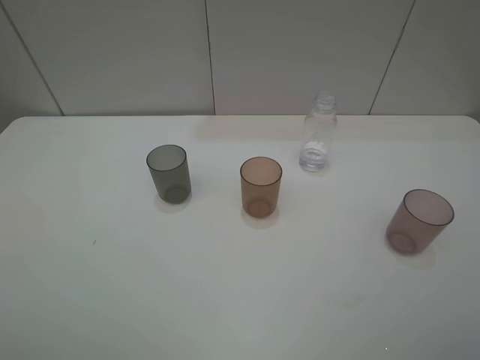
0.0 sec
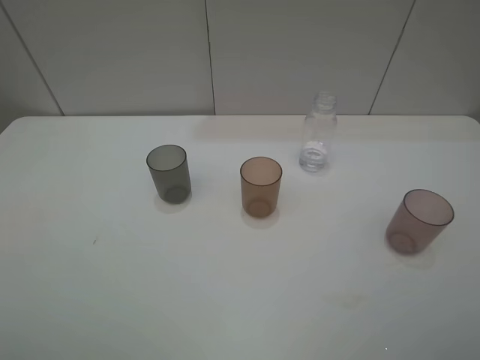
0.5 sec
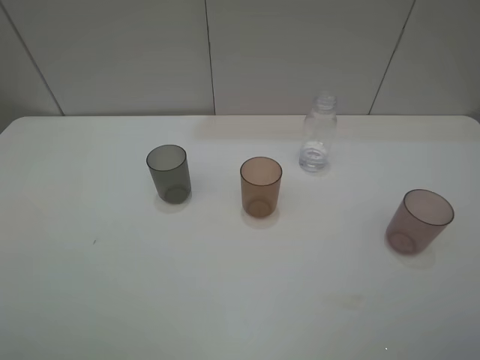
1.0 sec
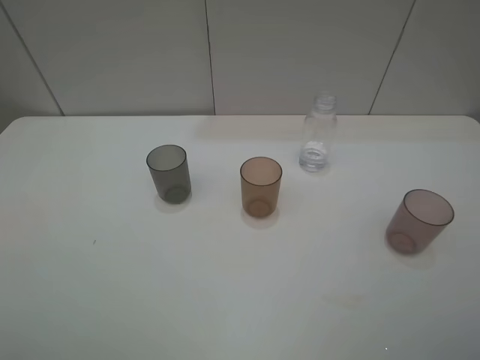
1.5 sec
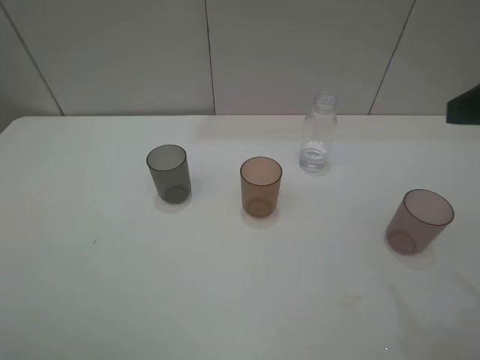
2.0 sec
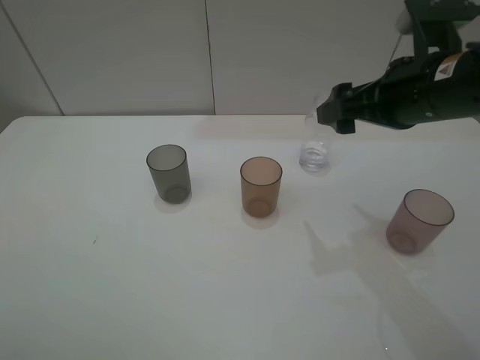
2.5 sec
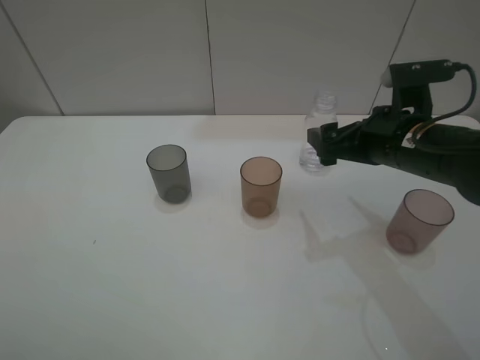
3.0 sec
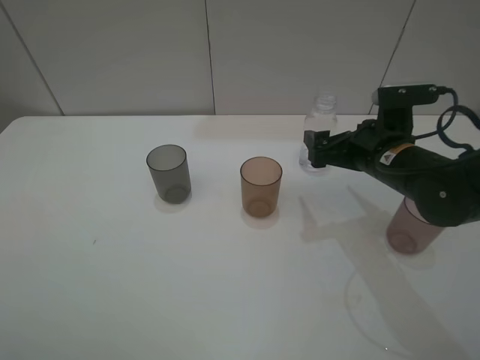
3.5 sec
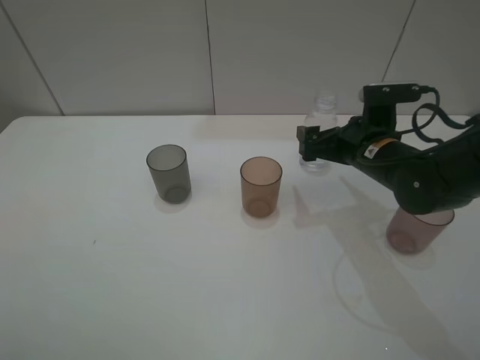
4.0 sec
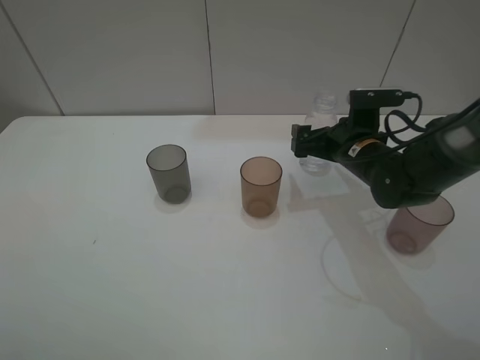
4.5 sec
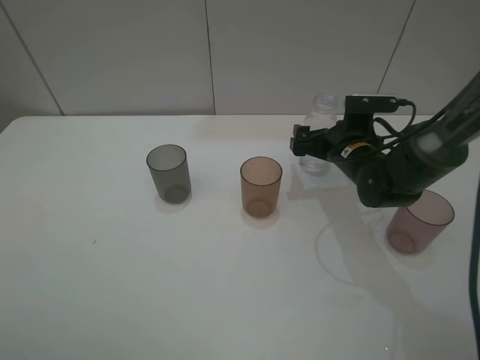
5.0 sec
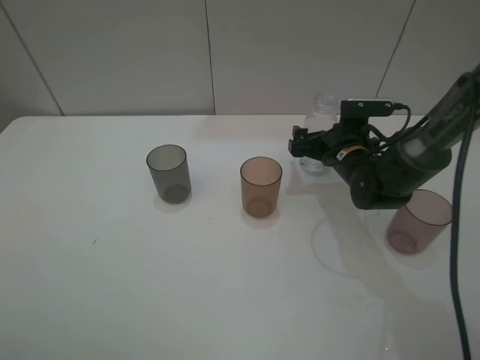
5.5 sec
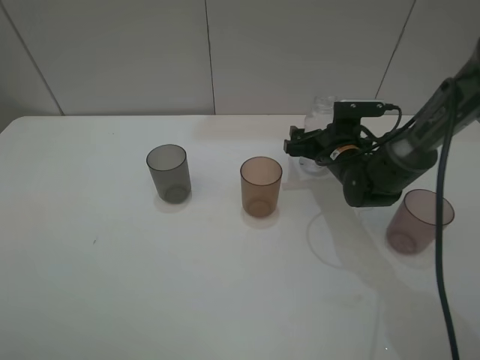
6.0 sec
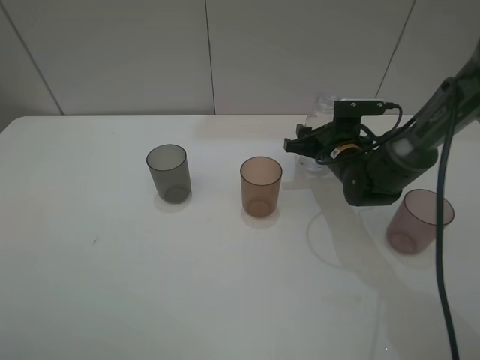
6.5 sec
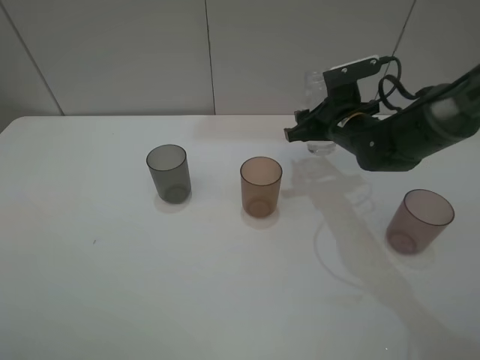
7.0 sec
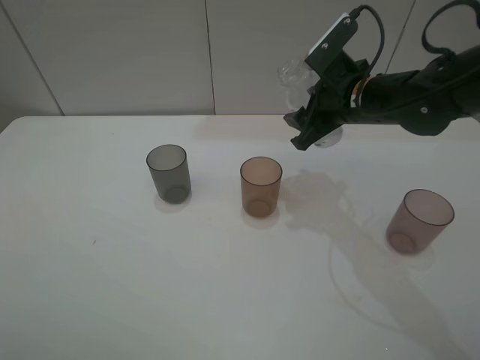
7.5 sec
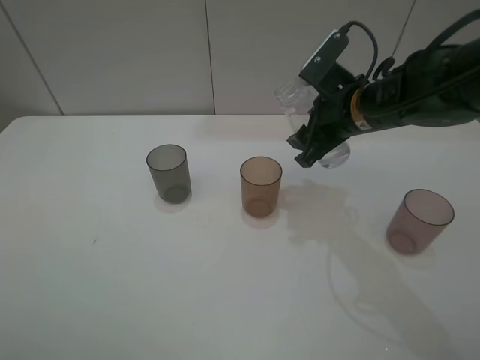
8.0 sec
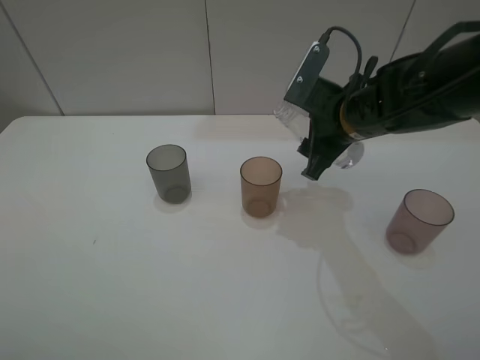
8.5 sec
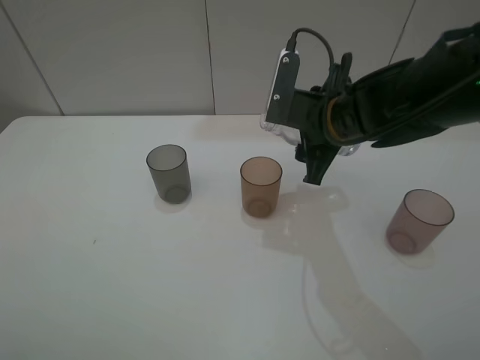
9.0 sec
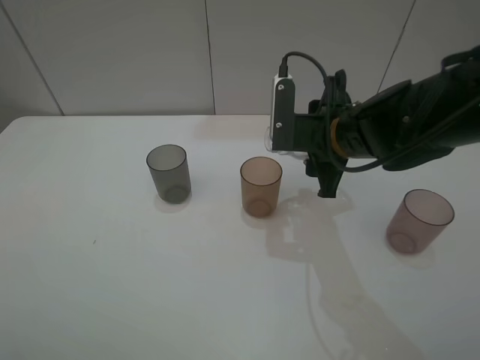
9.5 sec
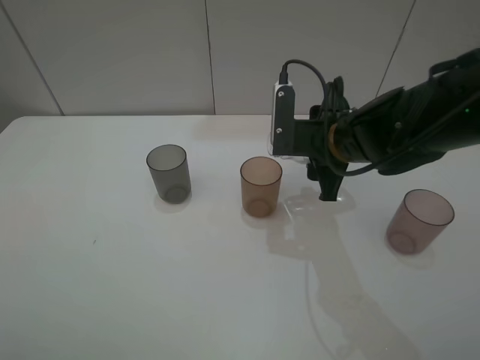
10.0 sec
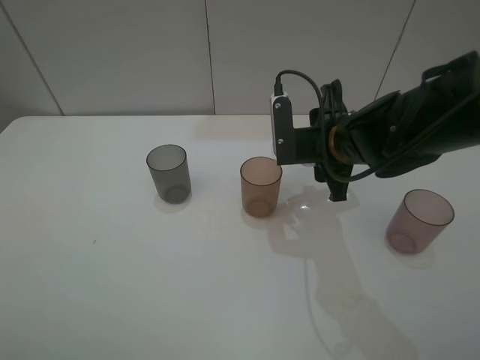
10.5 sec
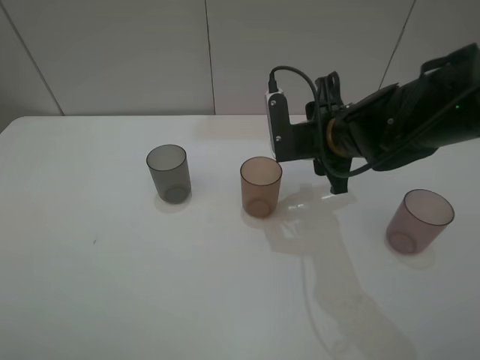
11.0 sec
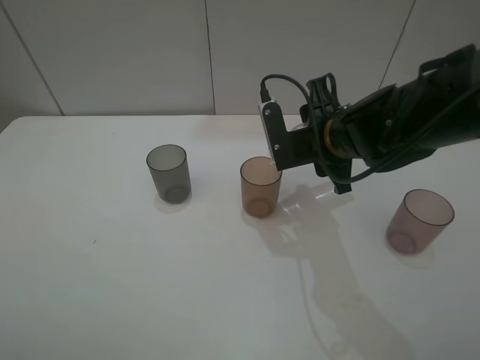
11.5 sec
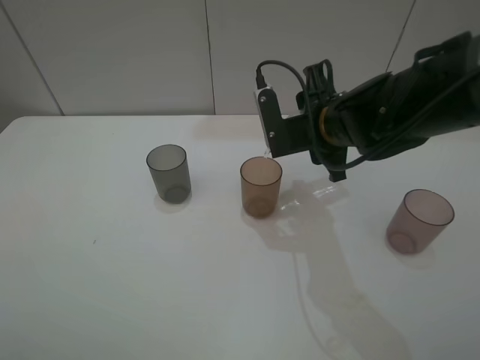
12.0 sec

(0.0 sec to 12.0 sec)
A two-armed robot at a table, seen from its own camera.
Task of the whole recording: pick up the bottle filled with water and pour water into the middle cup of the three cups.
Step, 0.0 sec - 6.5 sec: Grasp the transparent bottle with the right gripper.
2.0 sec - 4.0 sec: The right gripper travels downward, forward and to the left by roughly 25 cm.
4.0 sec - 6.0 sec: The right gripper goes roughly 10 cm forward and downward, and closes its fingers.
6.0 sec - 8.0 sec: The right gripper travels upward by some 10 cm, and closes.
10.0 sec - 12.0 sec: There are only small adjustments of the grippers.

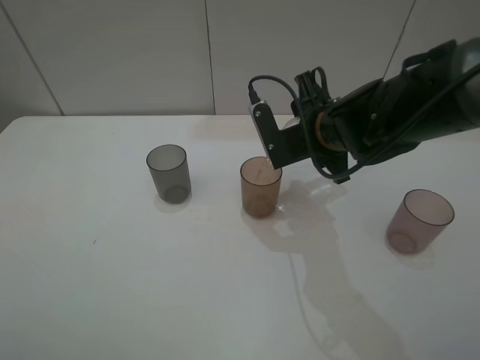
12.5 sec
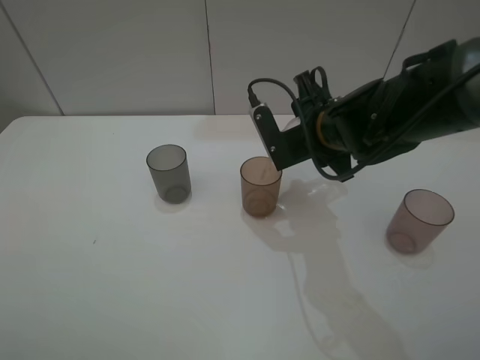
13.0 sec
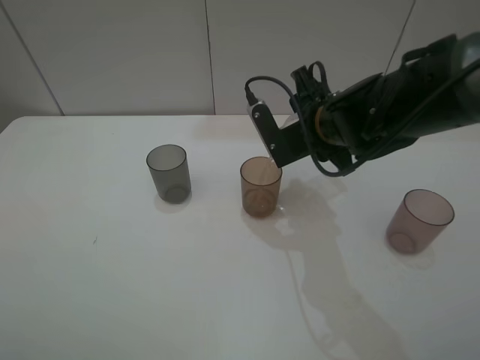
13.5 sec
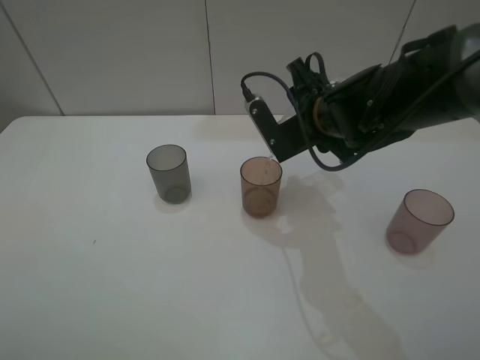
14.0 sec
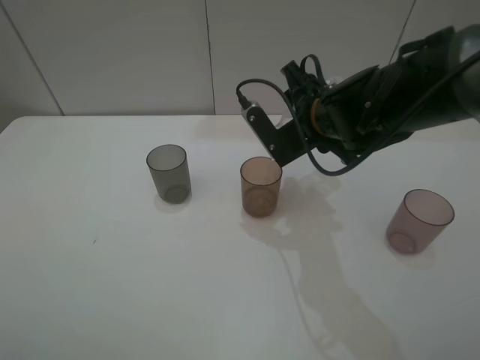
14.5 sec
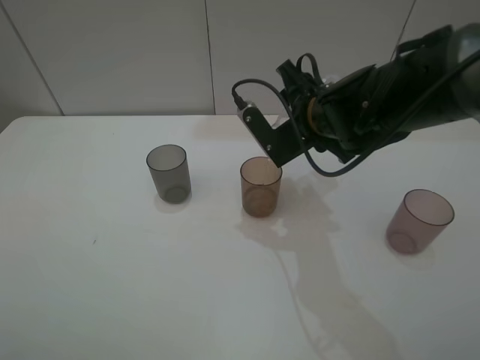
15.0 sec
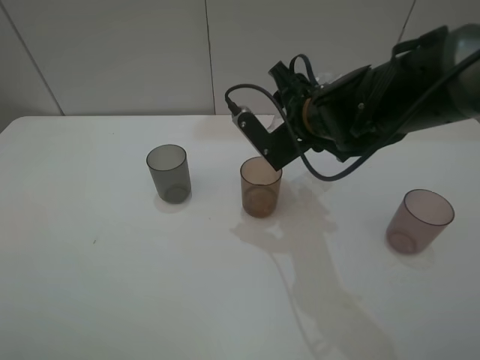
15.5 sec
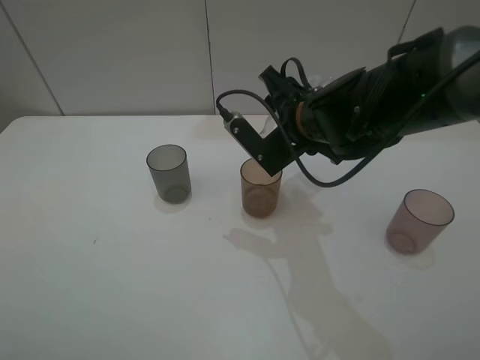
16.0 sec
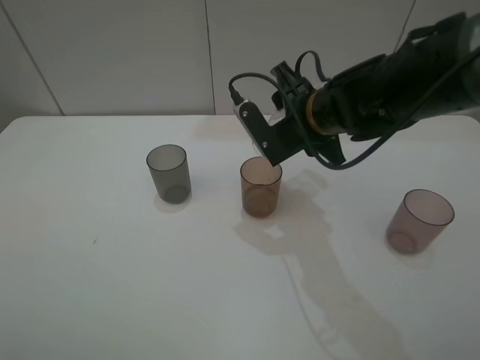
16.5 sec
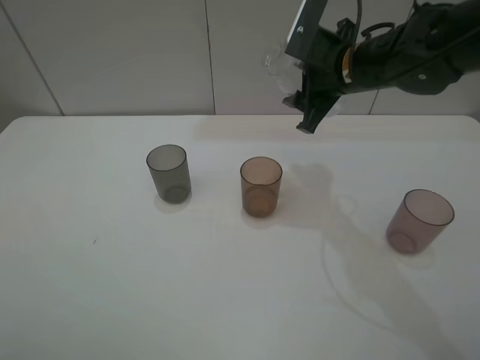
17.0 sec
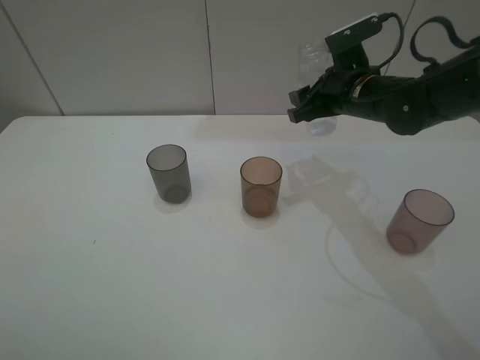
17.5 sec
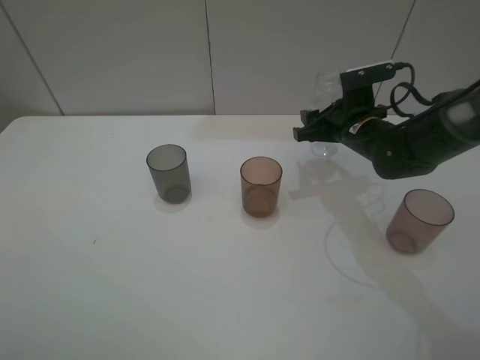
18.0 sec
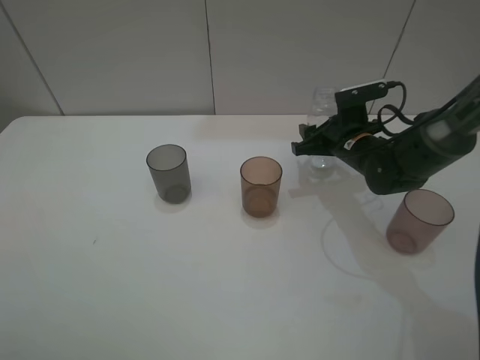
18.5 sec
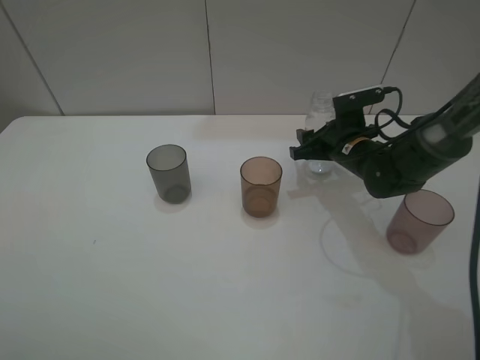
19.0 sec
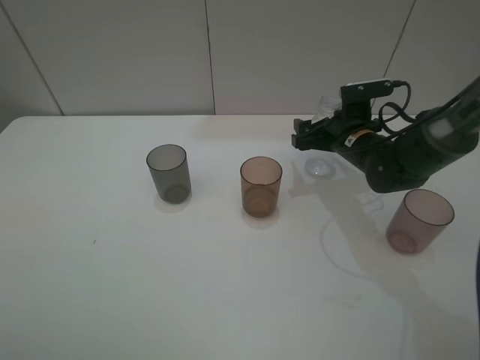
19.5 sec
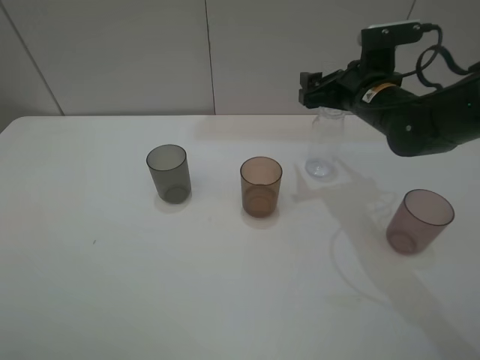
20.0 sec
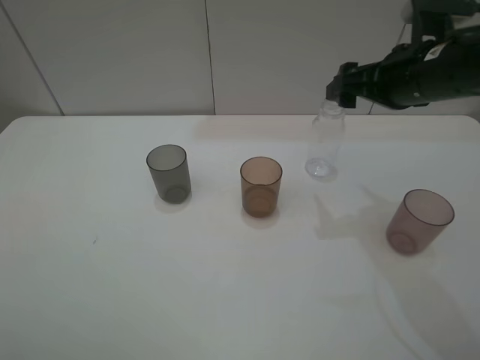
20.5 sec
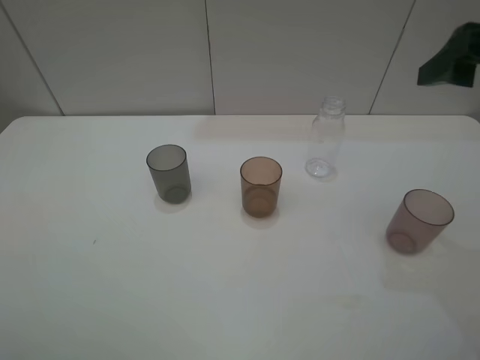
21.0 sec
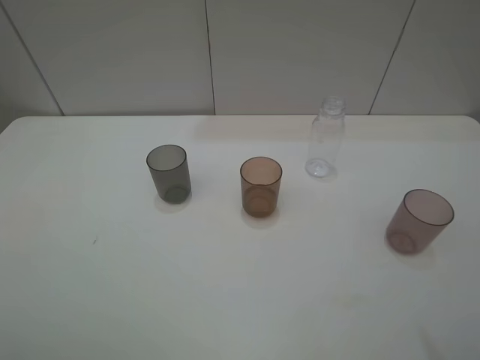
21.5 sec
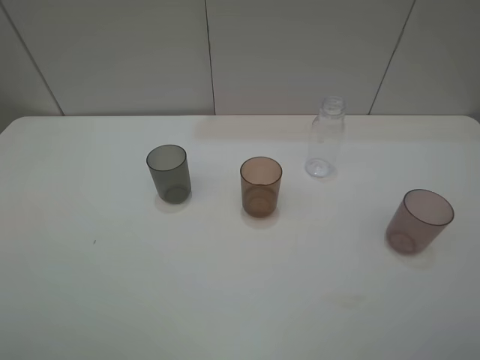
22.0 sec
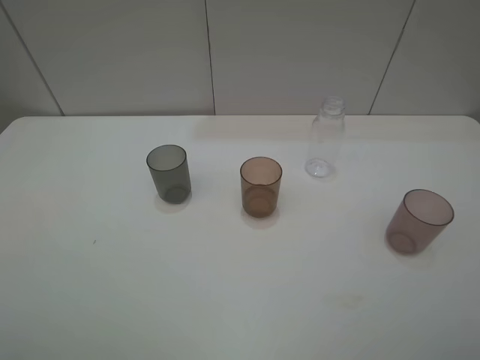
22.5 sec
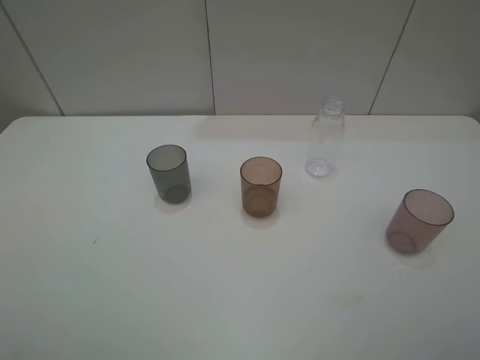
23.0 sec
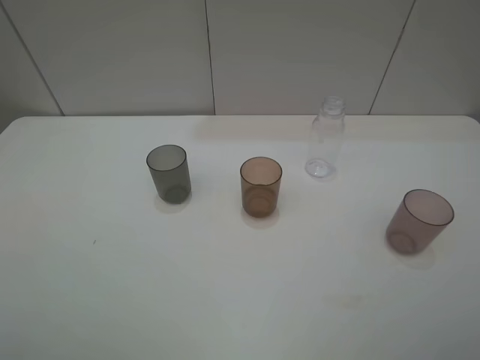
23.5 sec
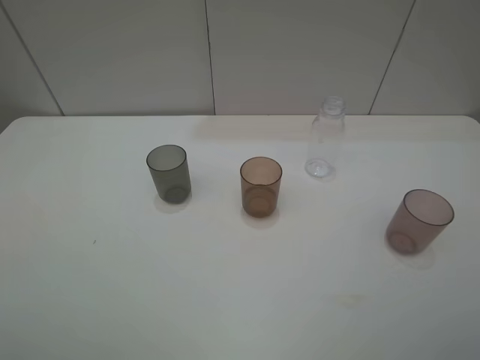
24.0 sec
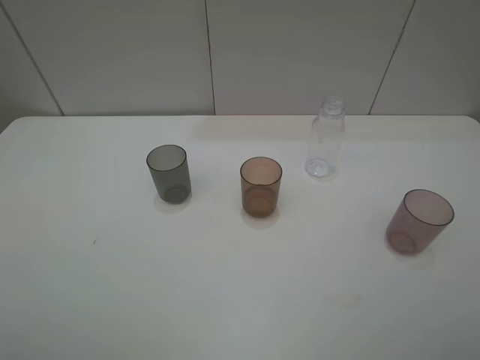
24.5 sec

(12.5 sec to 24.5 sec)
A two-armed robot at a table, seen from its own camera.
Task of the whole recording: pick up the bottle filled with water and pour water into the middle cup of the three cups.
Step, 12.5 sec - 17.0 sec: Pour water from transparent bottle tobrown cup with the right gripper.
Step, 17.5 sec - 19.5 sec: Place the transparent bottle with the right gripper.
12.5 sec - 14.5 sec: The grippers stay close to where they were, moving slightly.
14.5 sec - 16.5 sec: The grippers stay close to where they were, moving slightly.
16.5 sec - 18.5 sec: The right gripper shifts some 15 cm downward and to the right.
18.5 sec - 20.5 sec: The right gripper travels upward and backward by approximately 15 cm, and opens up.
20.5 sec - 22.5 sec: The right gripper goes some 35 cm backward.

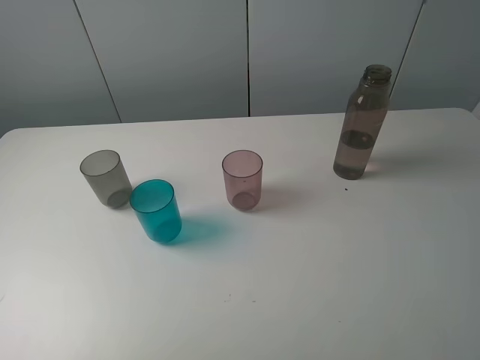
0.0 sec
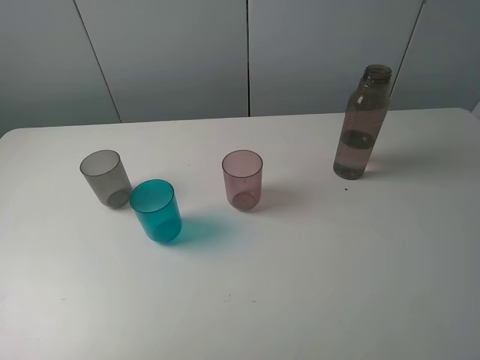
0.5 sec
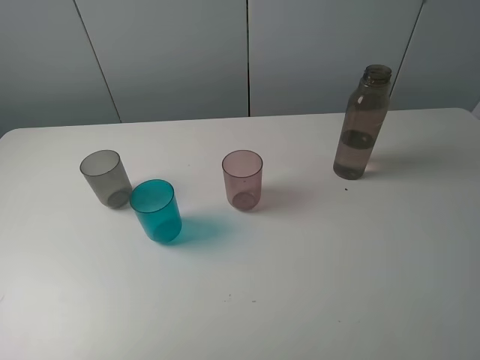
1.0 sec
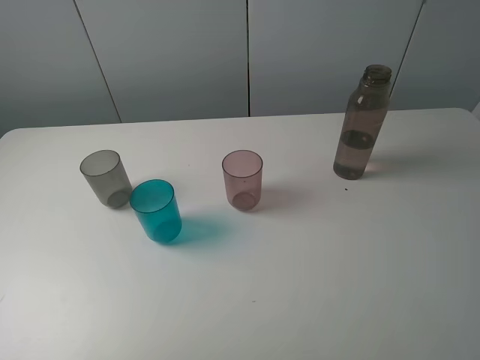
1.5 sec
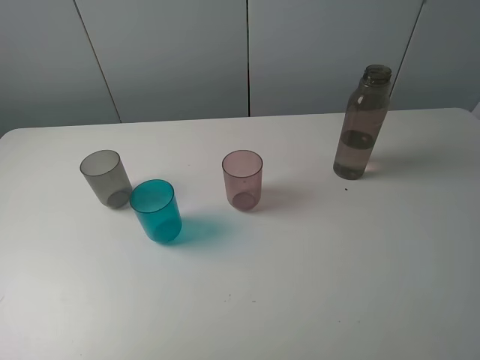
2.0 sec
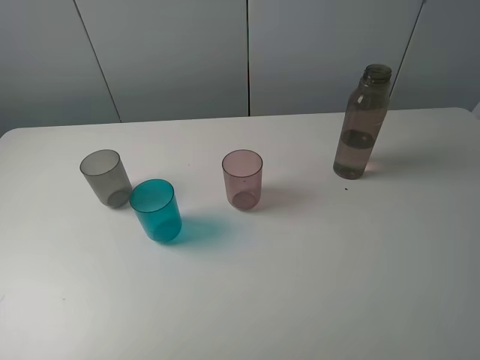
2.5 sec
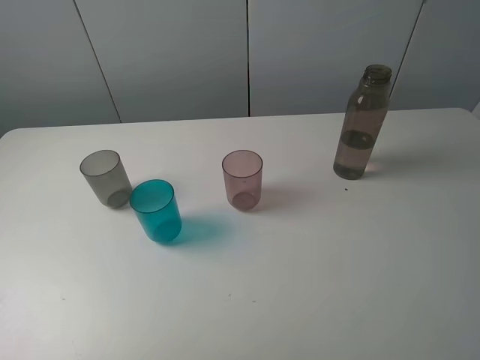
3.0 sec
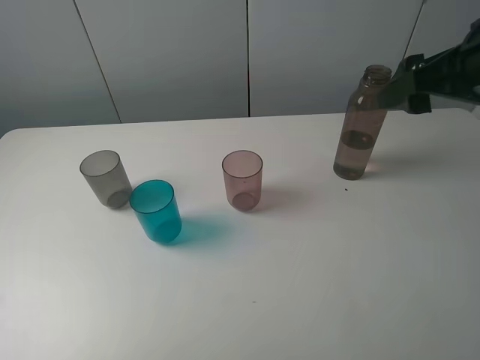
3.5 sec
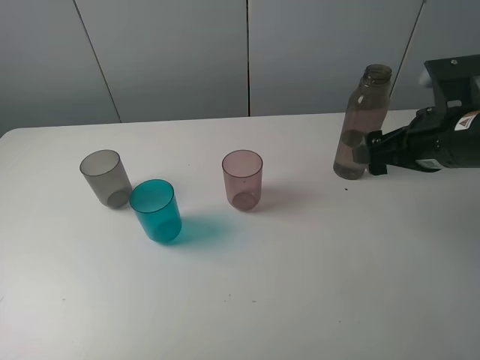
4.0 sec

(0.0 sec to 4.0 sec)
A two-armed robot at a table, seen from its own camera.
Task of the whole recording: pick up the bottle filled with water and pour water into the middle cup of the three cups.
0.0 sec - 2.0 sec: The two grippers keep their place.
2.0 sec - 4.0 sec: The right gripper shifts approximately 25 cm forward and downward.
